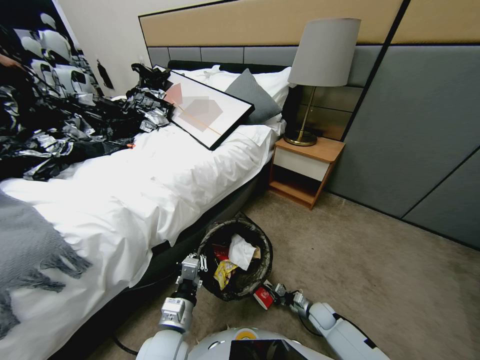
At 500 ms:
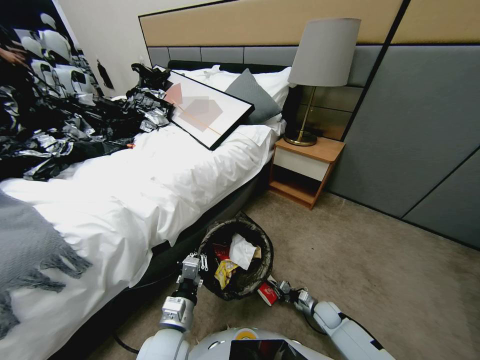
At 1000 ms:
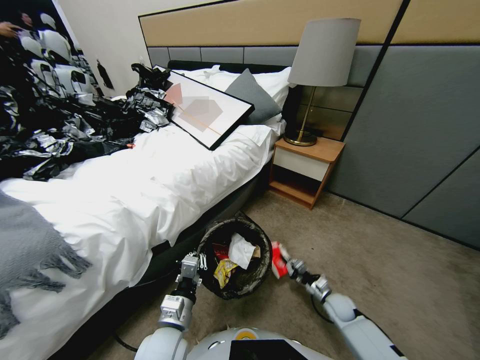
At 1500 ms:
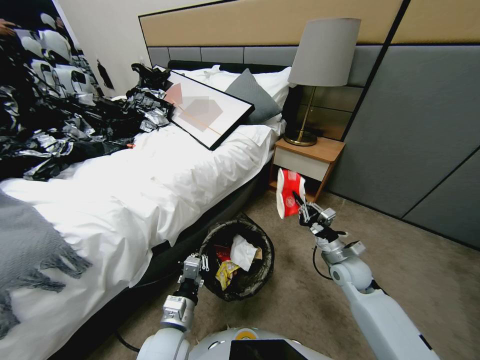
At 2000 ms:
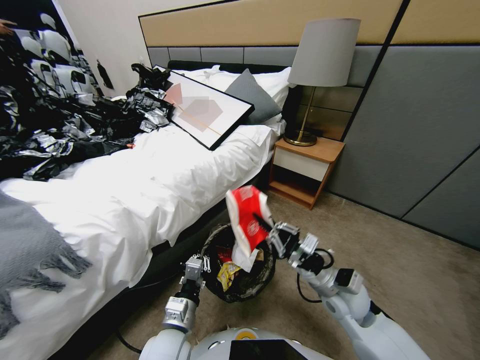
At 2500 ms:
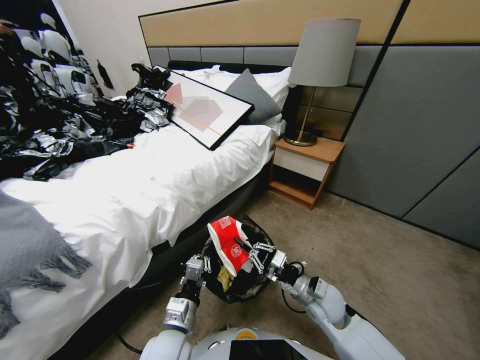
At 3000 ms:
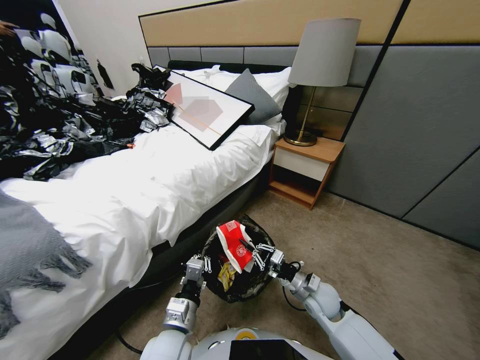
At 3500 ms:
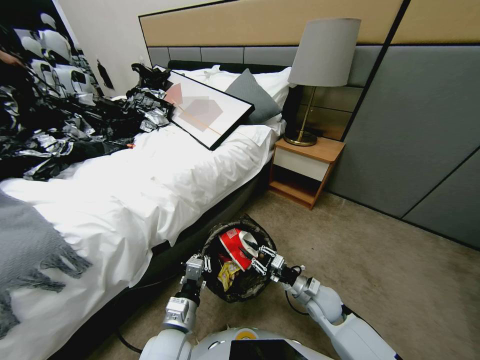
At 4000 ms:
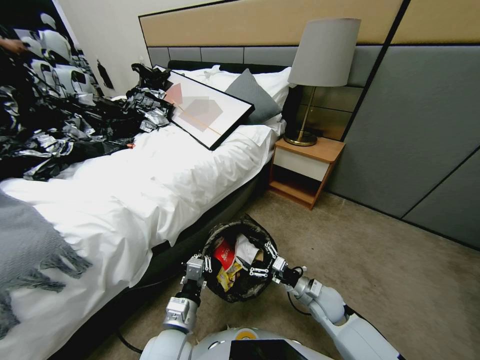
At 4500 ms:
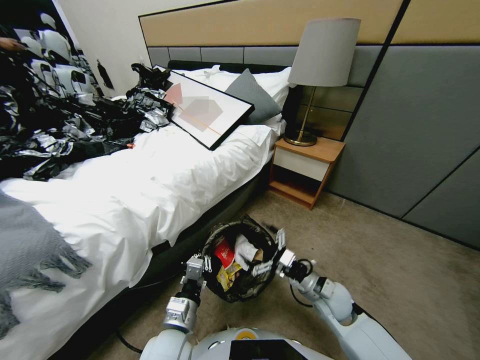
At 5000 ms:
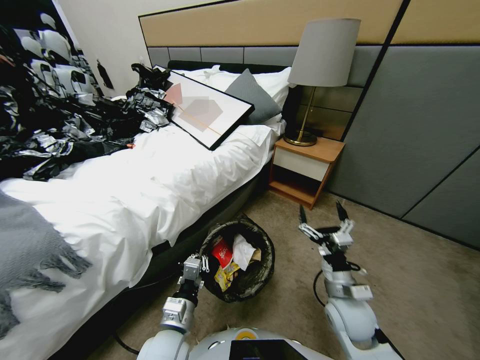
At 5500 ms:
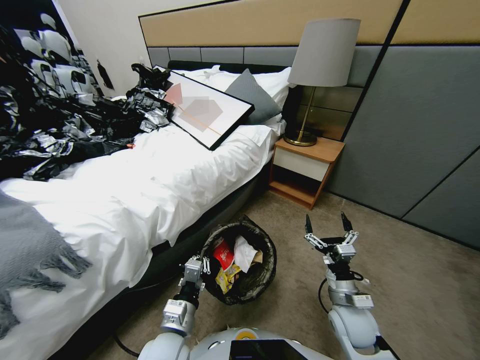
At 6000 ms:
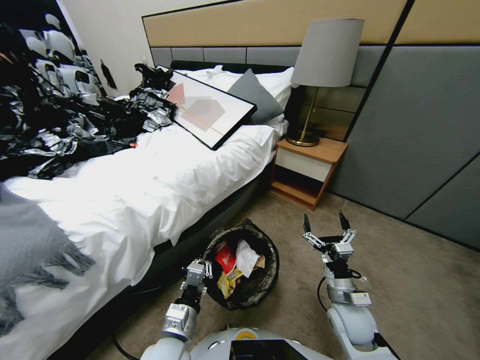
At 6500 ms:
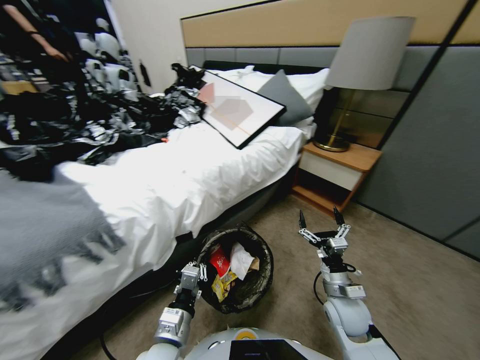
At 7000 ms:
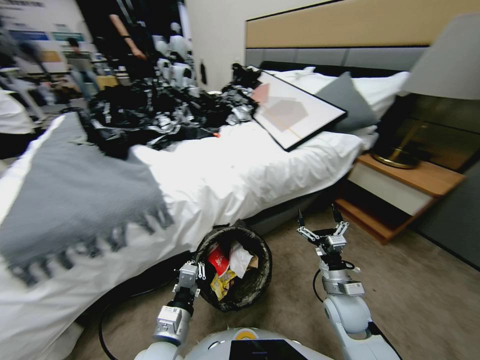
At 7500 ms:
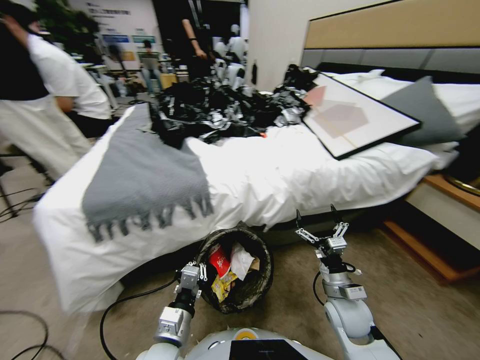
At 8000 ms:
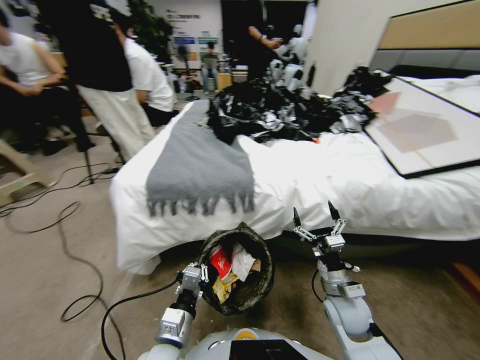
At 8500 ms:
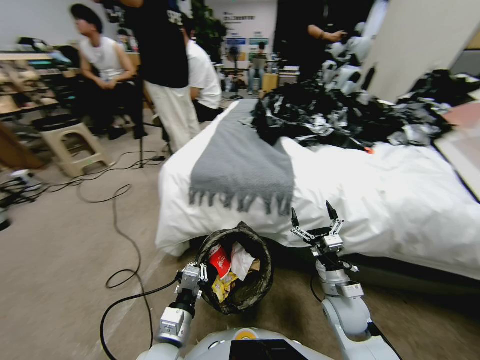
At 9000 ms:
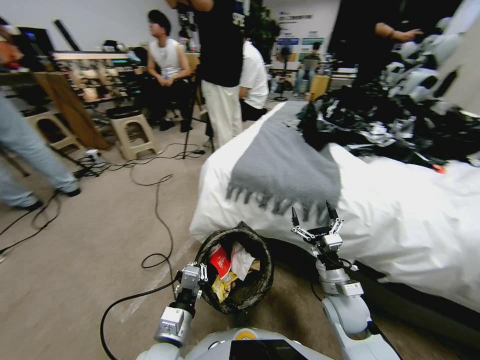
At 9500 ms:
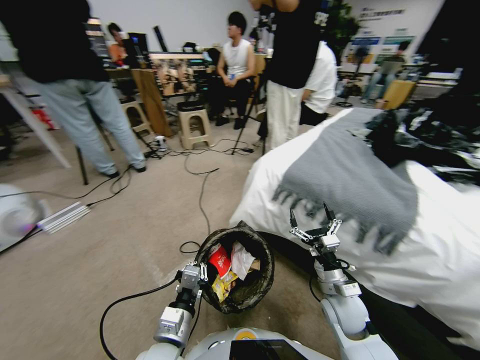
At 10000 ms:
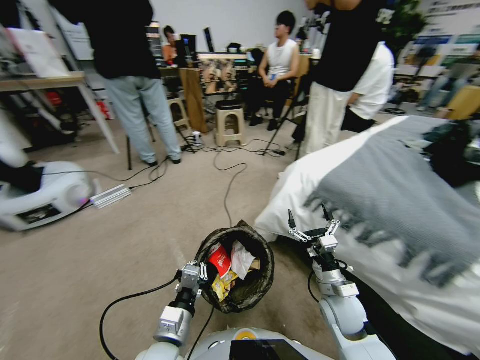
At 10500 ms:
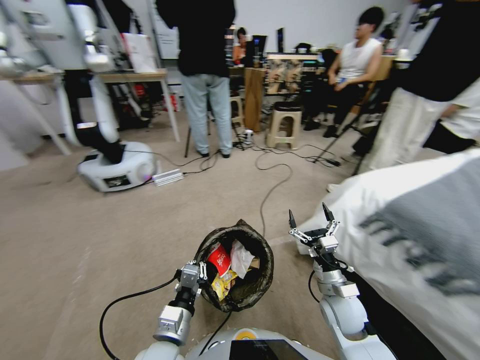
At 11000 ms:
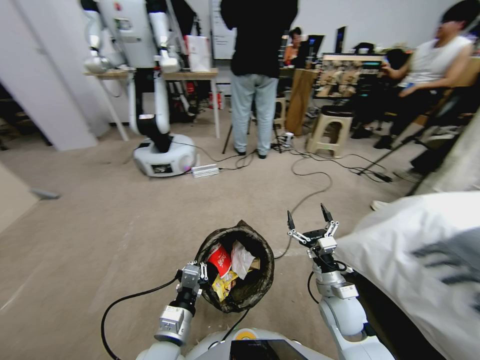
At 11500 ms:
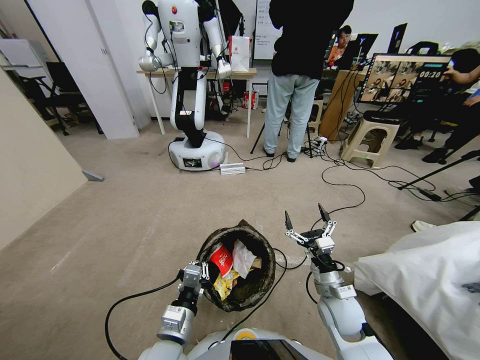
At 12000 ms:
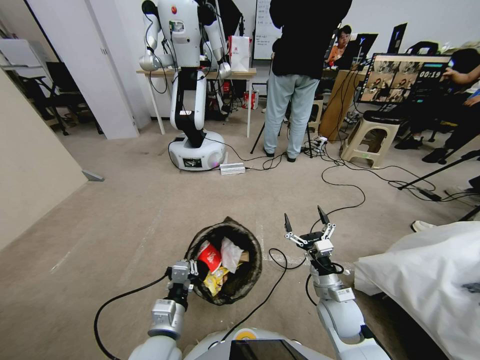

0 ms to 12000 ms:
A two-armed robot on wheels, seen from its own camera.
Task of the whole recording: Pick up the trash bin, then pick up the garbage from the floor and place it into the trash bin.
0 ms to 2000 ms: The right gripper shifts some 30 cm upward.
2000 ms to 4000 ms: The right gripper travels downward by roughly 10 cm, and opens.
4000 ms to 6000 ms: The right gripper moves approximately 5 cm.

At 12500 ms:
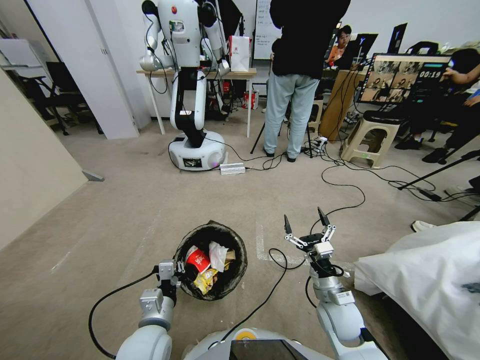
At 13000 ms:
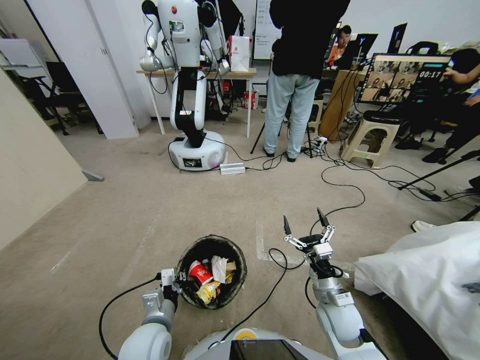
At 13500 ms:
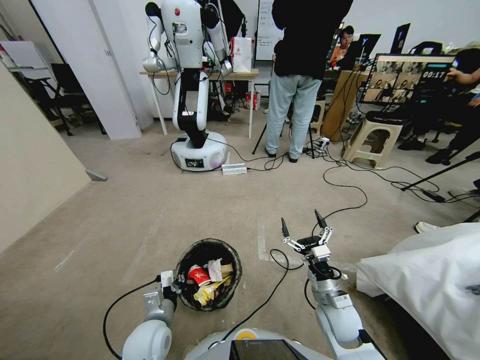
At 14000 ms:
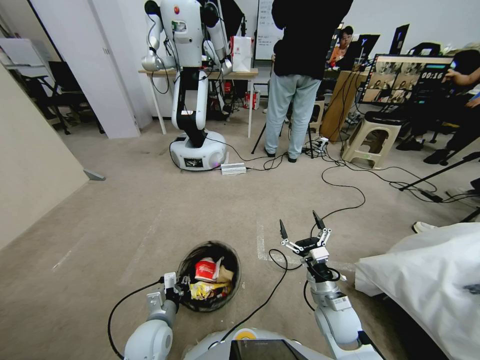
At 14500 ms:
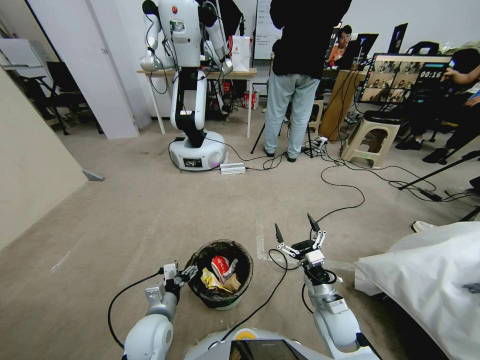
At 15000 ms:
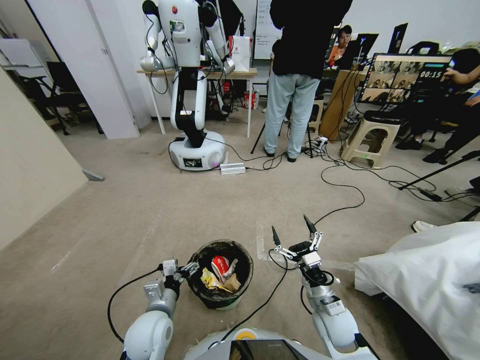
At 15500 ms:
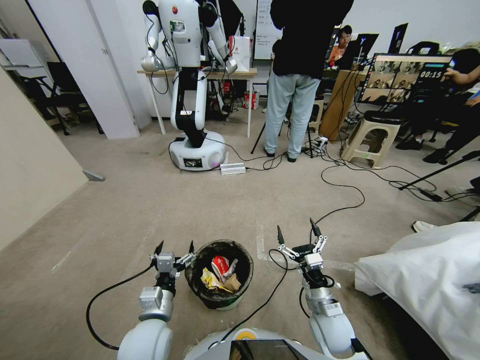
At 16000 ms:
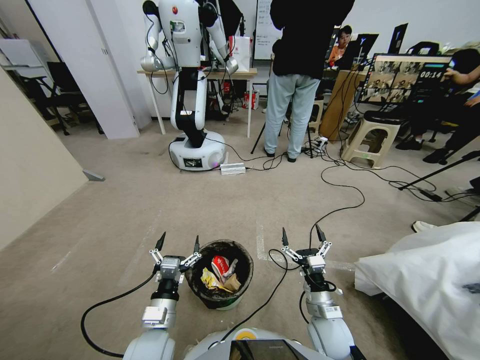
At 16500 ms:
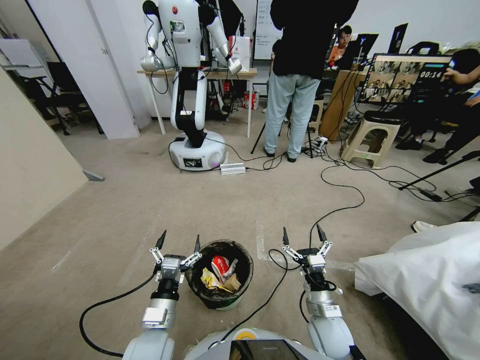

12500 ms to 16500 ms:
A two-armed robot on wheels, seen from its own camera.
Task of the whole recording: Pick up the trash bin, then pick up the garbage from the floor and place it into the trash bin.
12500 ms to 14500 ms: The left gripper changes place by roughly 5 cm, and opens its fingers.
14500 ms to 16500 ms: The left gripper shifts by roughly 5 cm.

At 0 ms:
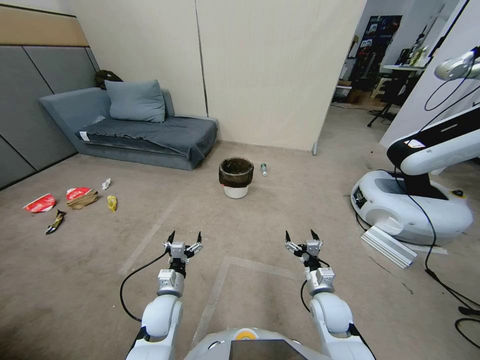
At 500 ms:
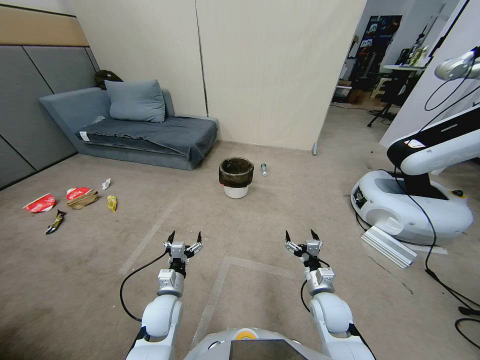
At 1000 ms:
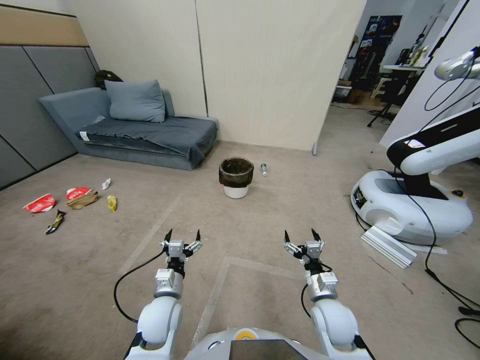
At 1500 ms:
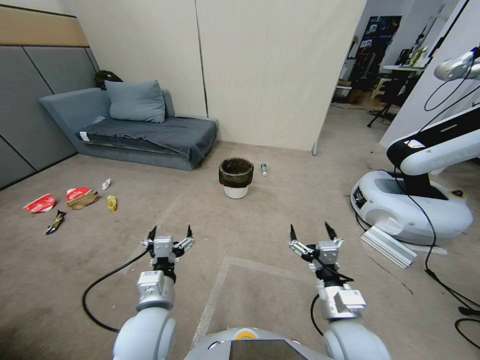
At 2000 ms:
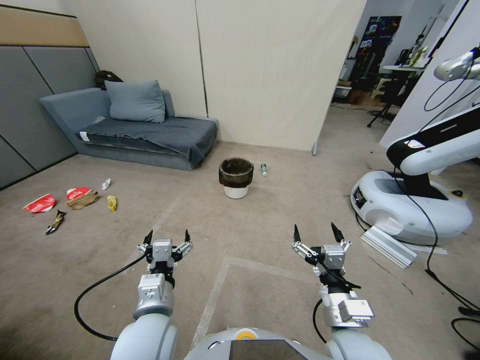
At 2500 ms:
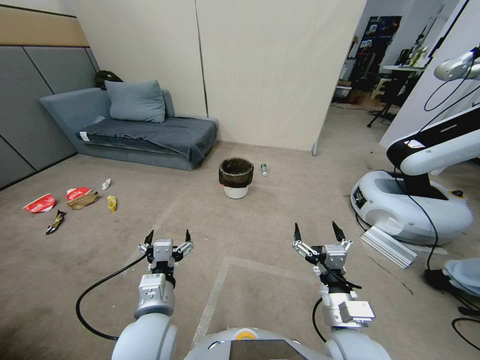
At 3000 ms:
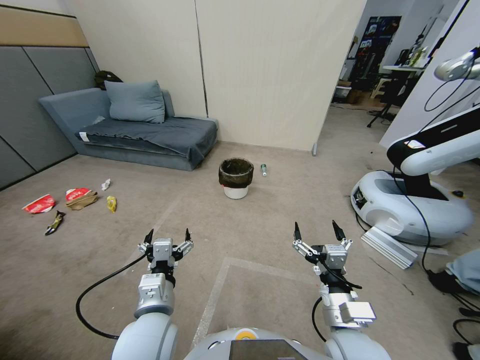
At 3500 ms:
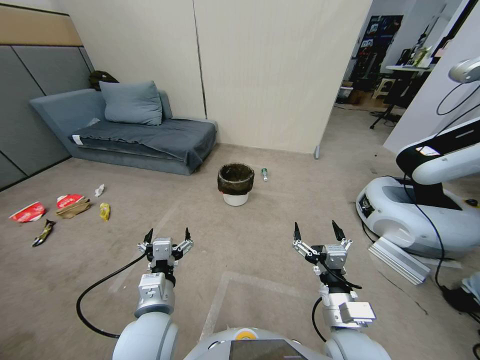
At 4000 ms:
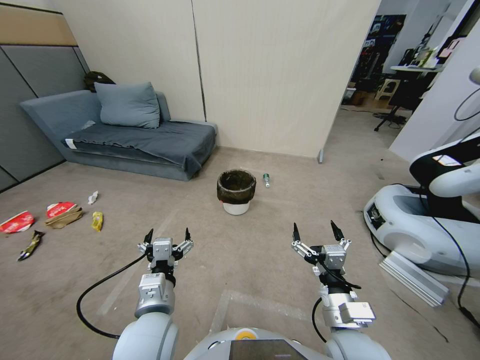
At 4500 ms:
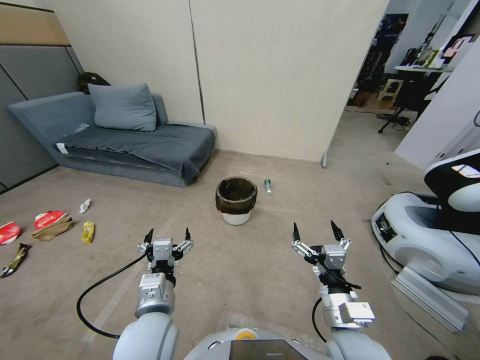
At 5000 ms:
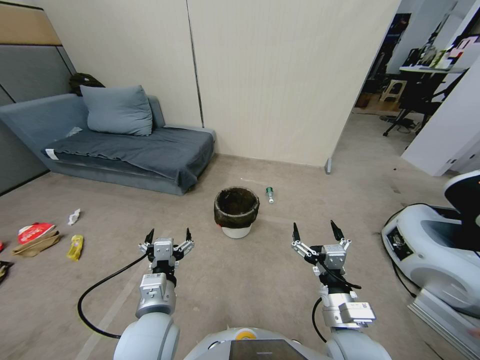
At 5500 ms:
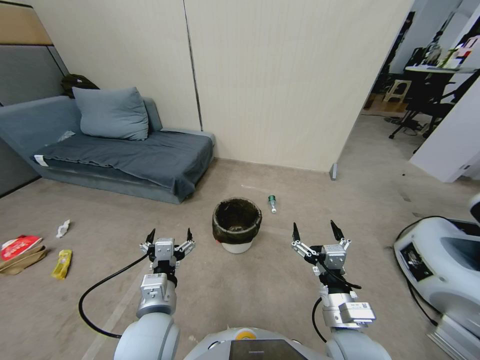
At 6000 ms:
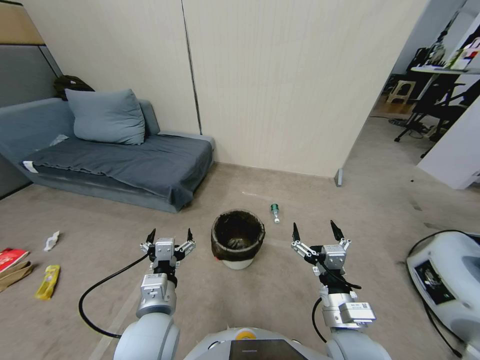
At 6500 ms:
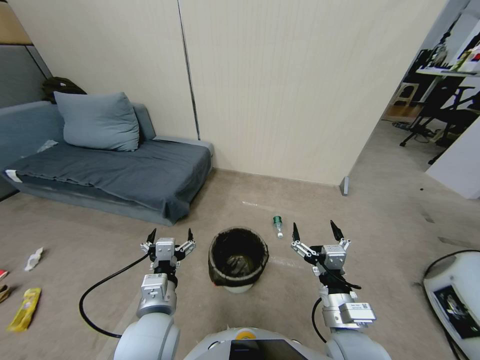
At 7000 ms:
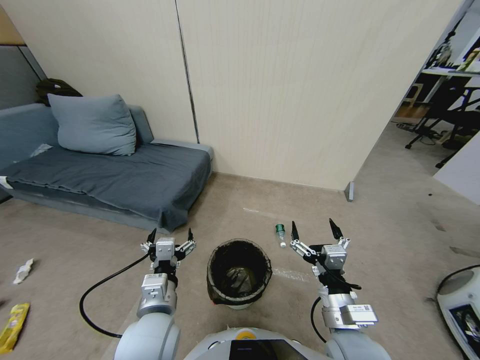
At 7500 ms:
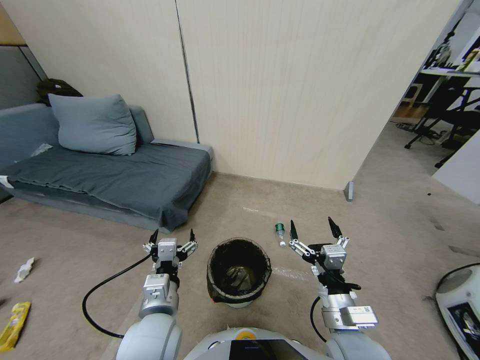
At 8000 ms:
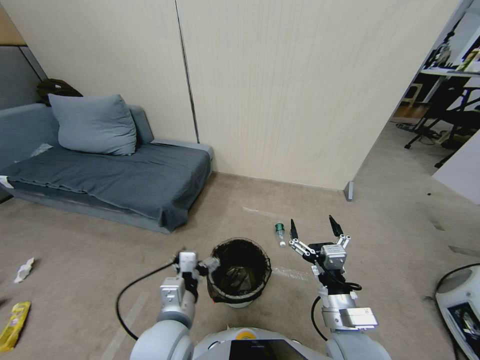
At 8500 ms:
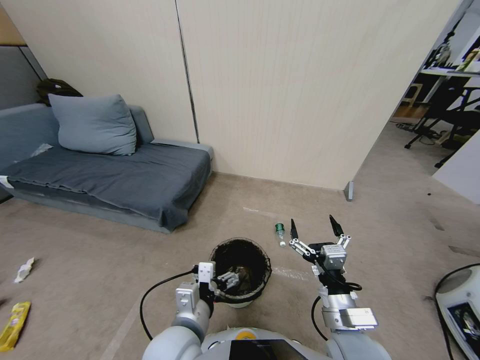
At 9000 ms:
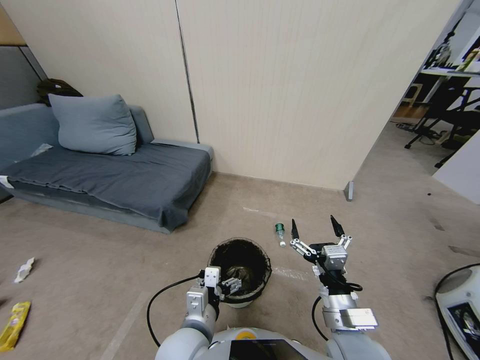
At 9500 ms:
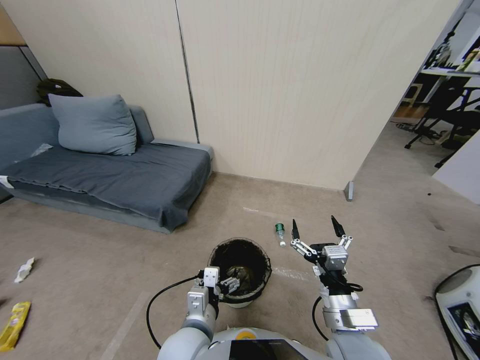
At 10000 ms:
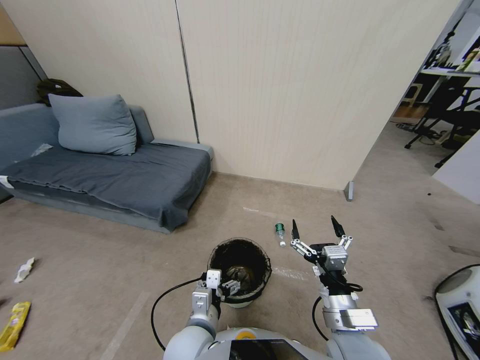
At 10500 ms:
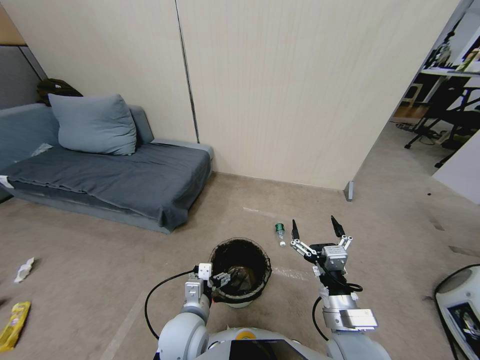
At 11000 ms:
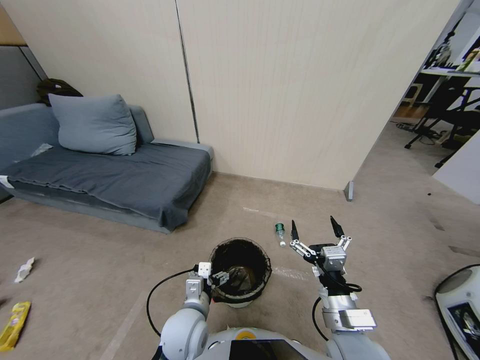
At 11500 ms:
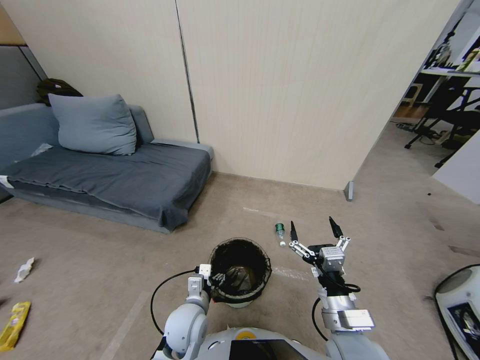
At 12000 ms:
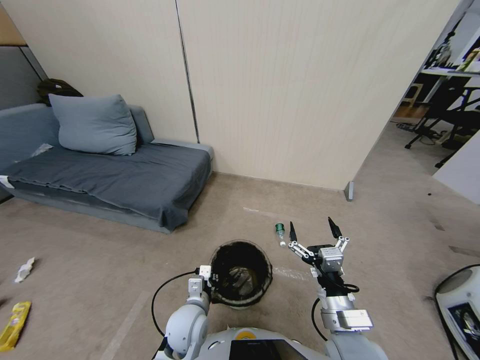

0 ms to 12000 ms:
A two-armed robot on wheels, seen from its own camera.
Task of the whole recording: Pick up the trash bin, then pick up the garbage from the floor and place it into the trash bin.
8000 ms to 10000 ms: The left gripper ends up some 5 cm from where it was.
10000 ms to 12000 ms: The left gripper is displaced downward and forward by roughly 10 cm, and closes its fingers.
